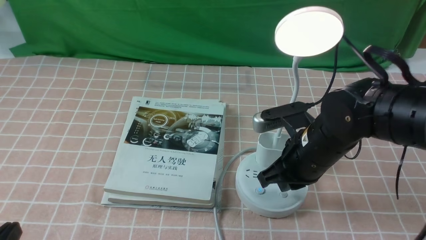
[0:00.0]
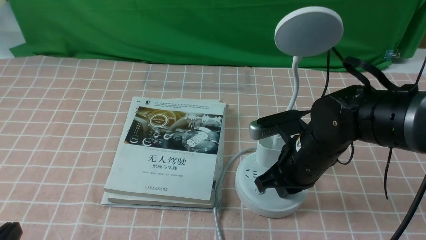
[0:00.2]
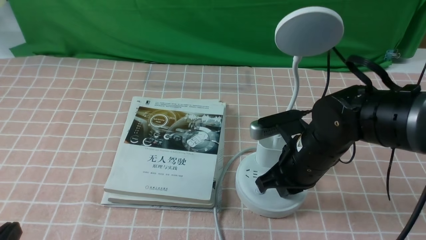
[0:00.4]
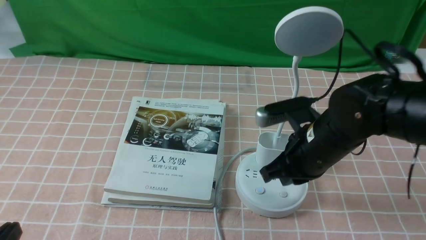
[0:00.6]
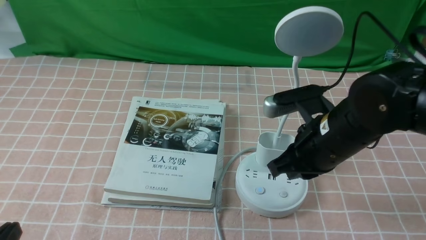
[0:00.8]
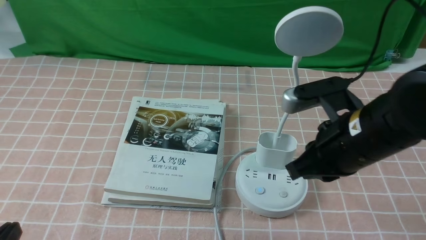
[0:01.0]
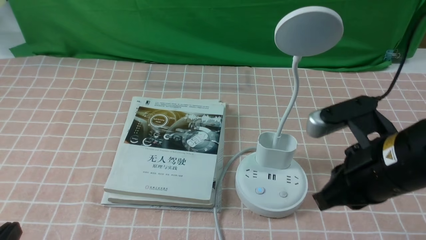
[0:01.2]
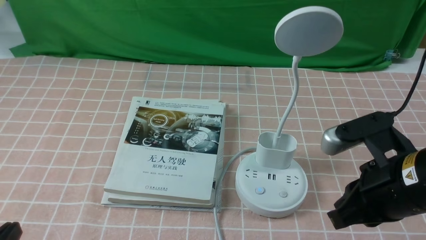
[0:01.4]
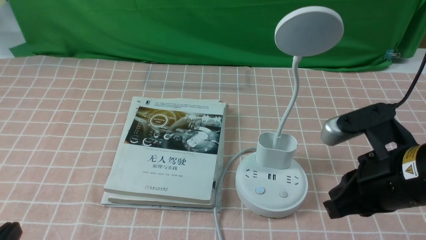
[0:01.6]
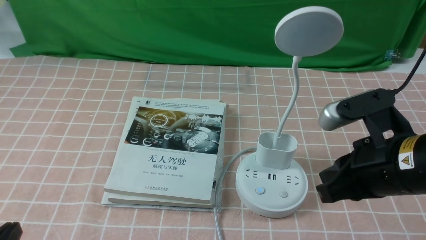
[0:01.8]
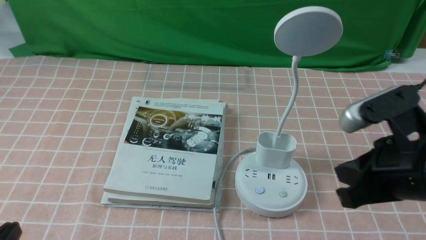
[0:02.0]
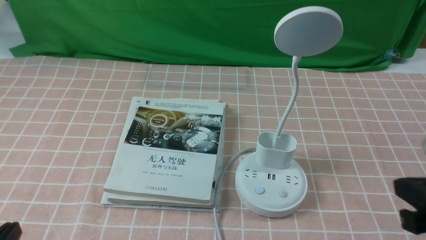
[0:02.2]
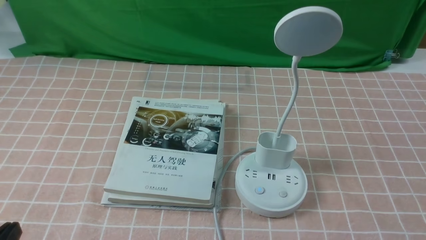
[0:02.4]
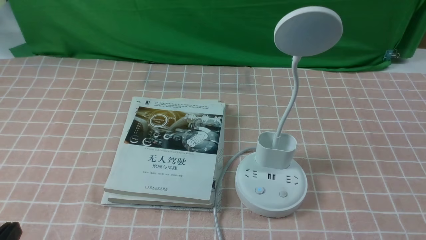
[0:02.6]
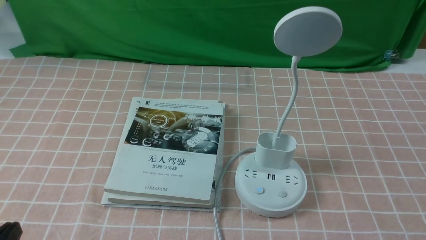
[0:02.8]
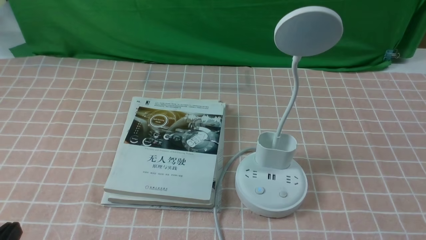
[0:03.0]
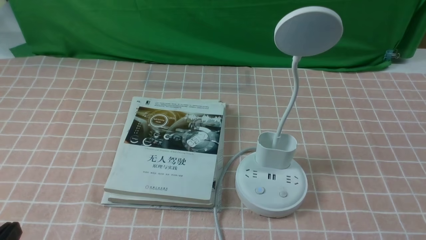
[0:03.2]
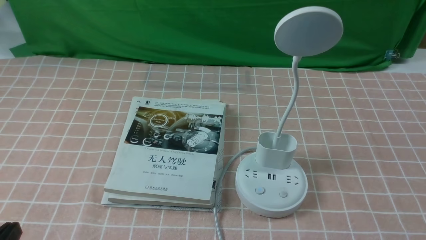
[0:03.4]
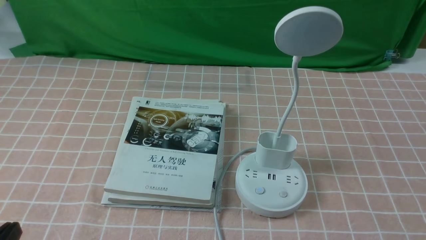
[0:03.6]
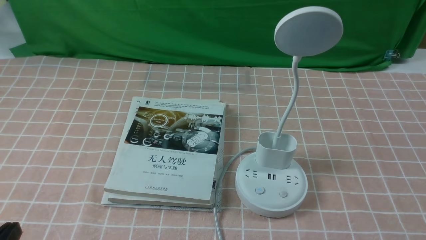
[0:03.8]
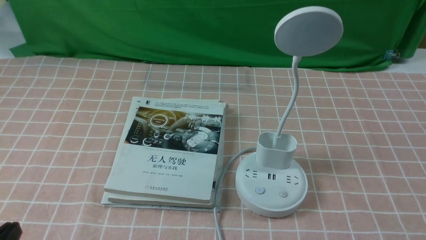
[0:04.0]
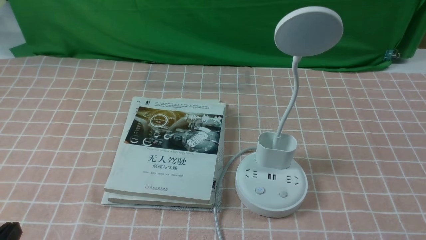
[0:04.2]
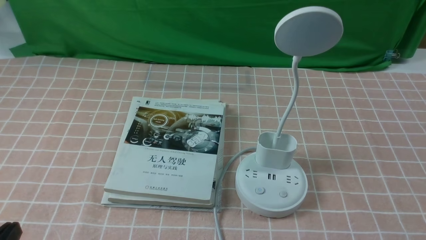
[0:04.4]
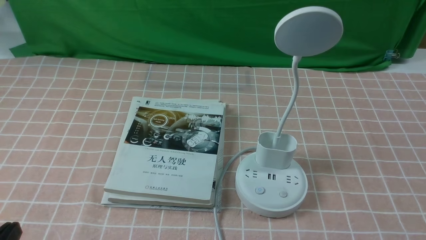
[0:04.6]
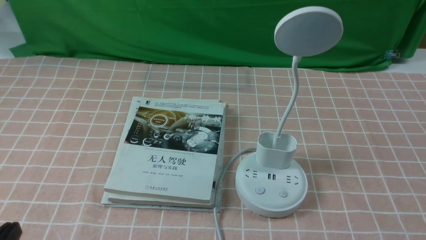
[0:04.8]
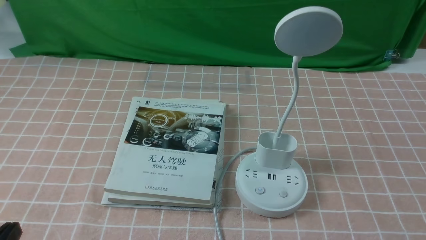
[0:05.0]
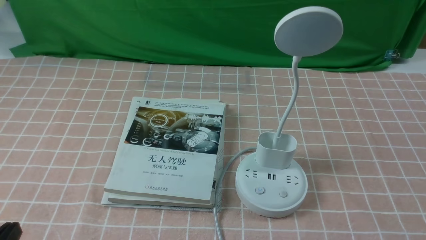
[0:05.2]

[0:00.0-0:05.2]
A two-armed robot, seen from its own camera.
Task of the whole recording: turn off the table lamp on the pink coffee tablecloth by hand.
0:00.0 to 0:01.8: The right gripper goes about 15 cm backward, upward and to the right.
0:01.8 to 0:03.4: The right gripper moves backward, to the right and downward, approximately 20 cm.
